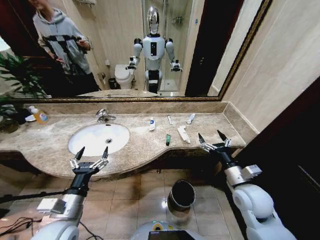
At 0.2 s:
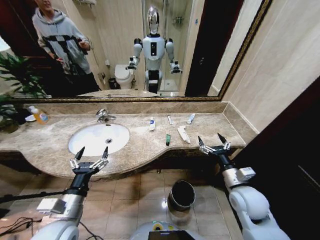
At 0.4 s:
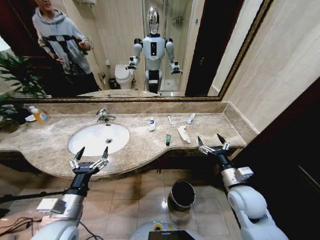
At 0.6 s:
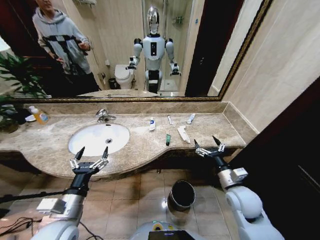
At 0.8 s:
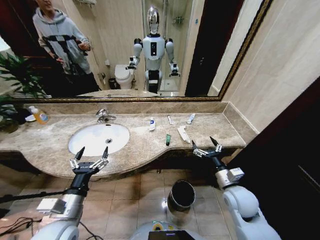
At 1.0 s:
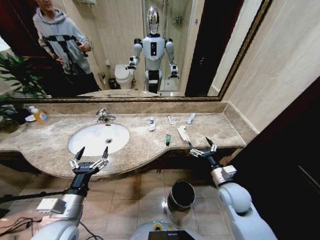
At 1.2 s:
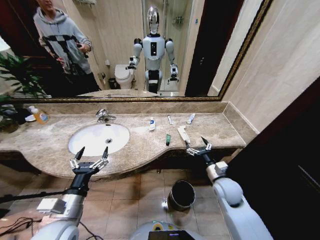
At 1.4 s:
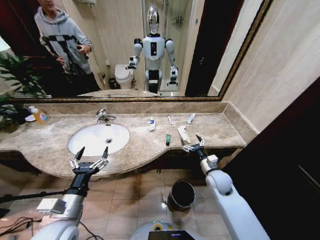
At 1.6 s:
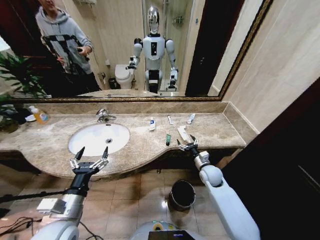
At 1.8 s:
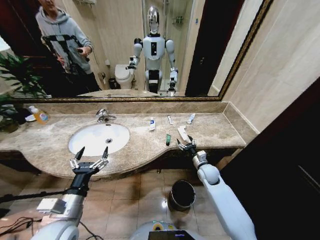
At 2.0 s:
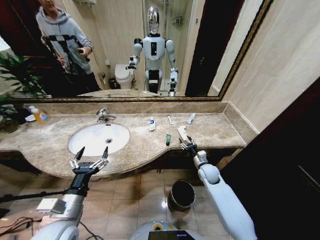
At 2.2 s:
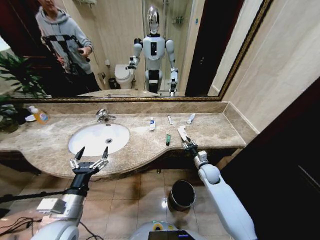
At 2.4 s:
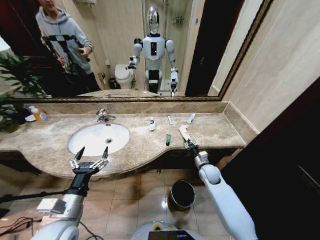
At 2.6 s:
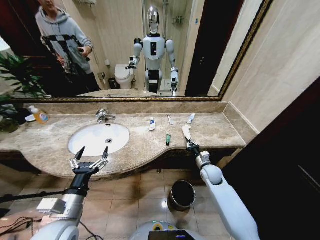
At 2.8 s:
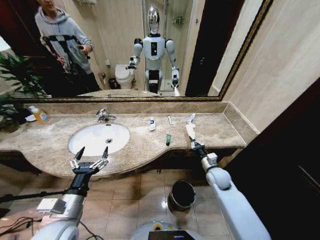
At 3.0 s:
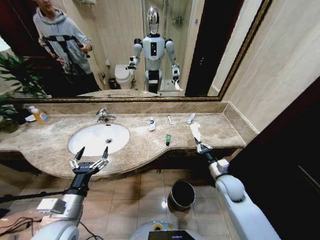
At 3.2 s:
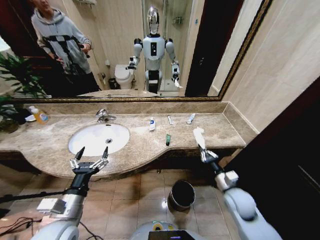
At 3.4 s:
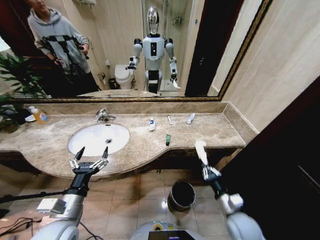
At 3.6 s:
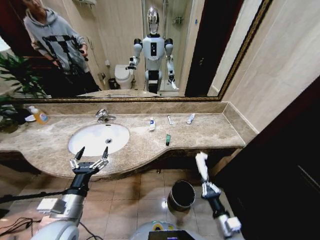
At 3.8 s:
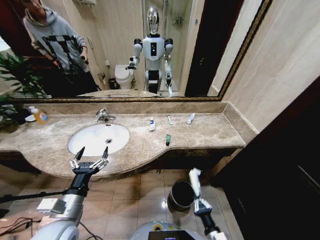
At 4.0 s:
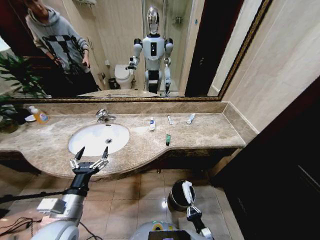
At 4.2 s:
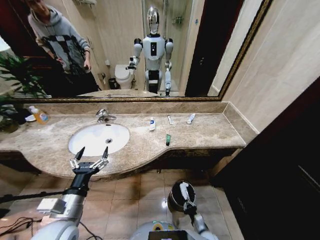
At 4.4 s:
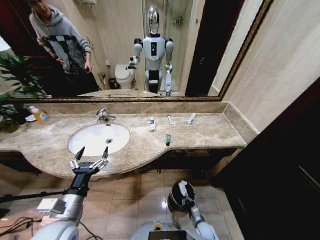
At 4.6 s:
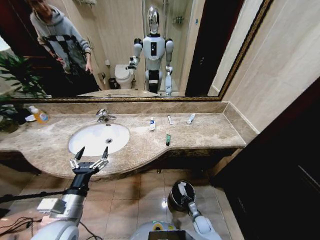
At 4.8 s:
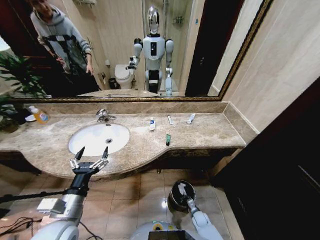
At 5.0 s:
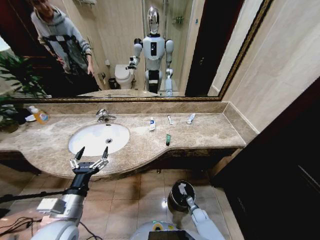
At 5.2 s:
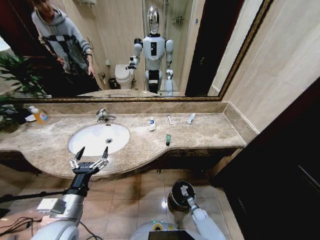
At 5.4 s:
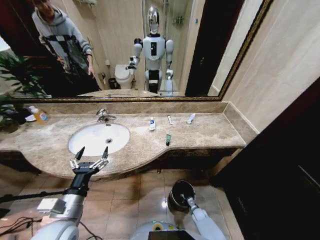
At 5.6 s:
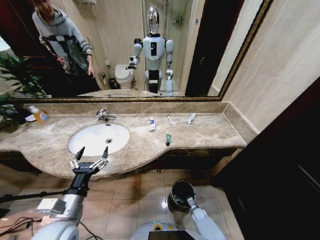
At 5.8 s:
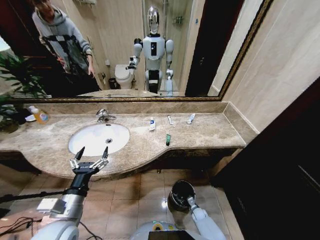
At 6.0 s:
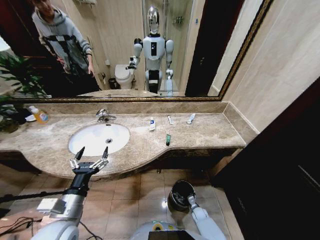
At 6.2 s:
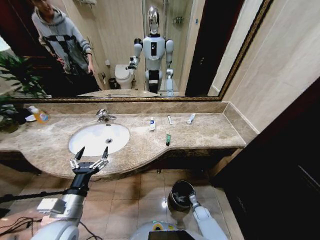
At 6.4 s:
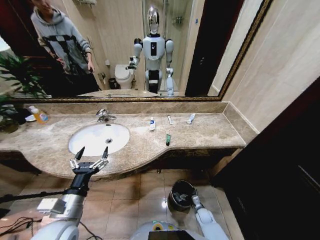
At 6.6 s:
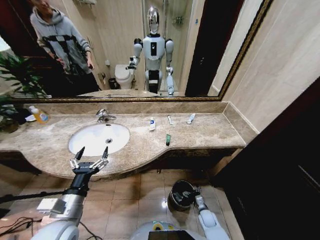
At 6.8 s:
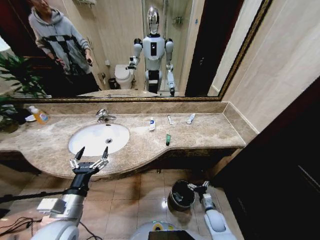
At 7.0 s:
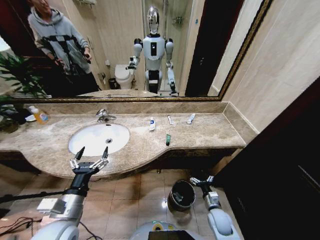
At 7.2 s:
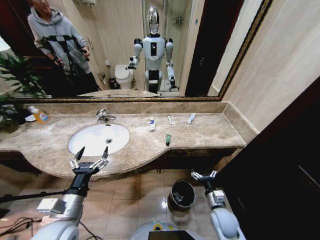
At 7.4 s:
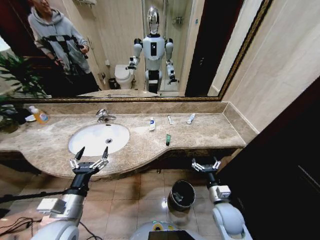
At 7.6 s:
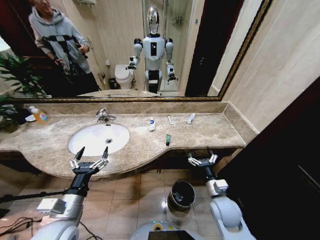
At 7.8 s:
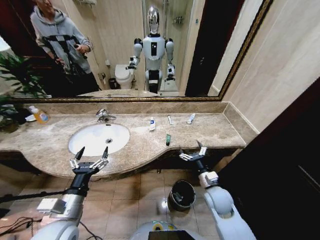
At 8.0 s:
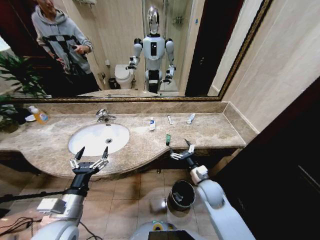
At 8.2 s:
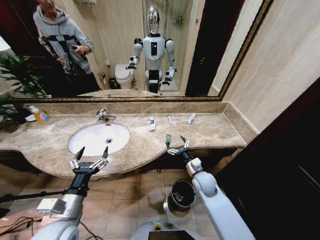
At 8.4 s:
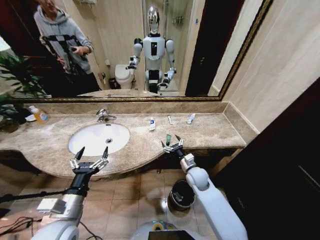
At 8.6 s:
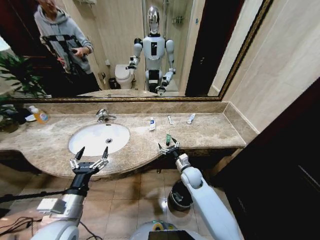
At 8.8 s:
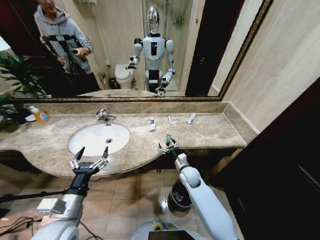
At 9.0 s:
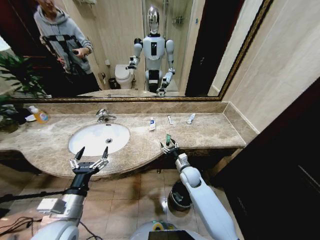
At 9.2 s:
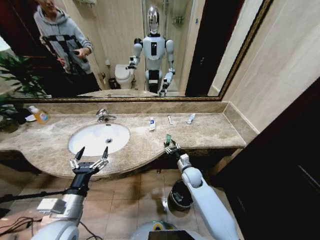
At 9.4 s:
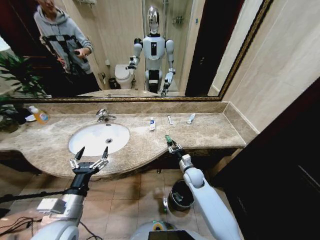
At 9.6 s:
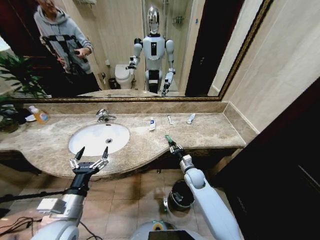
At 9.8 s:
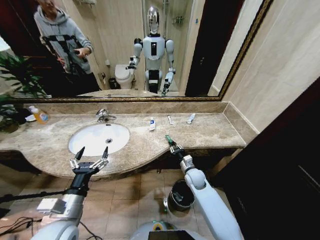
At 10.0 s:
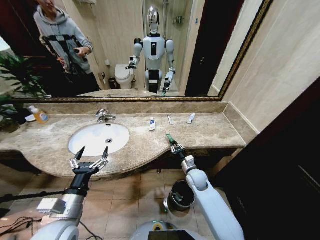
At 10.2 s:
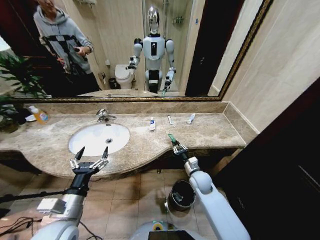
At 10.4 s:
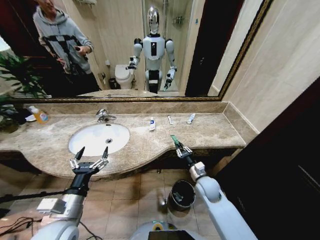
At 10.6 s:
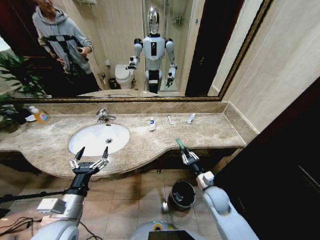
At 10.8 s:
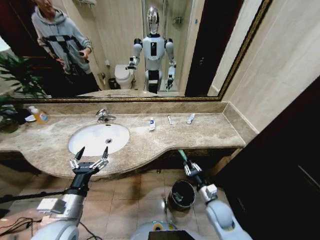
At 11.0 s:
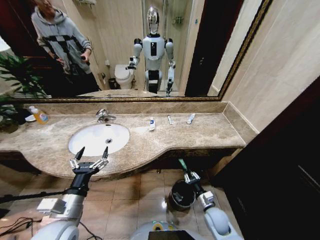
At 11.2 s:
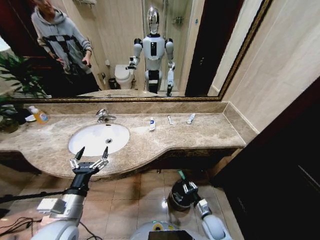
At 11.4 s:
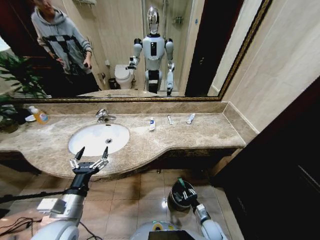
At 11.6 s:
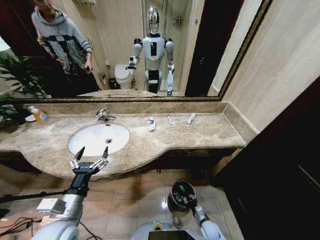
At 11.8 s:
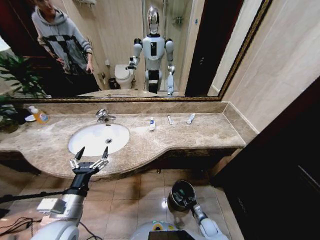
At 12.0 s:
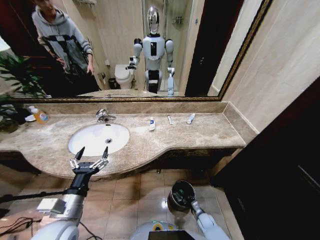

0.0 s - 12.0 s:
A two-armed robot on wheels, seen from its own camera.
Task of the whole recording: Pick up the trash from the sink and place it in the trash bin.
1.6 s - 3.0 s: The right gripper shifts roughly 10 cm backward, and closes.
3.0 s - 4.4 s: The right gripper travels downward by roughly 30 cm.
4.4 s - 6.0 s: The right gripper shifts roughly 10 cm forward and downward, and opens.
6.0 s - 7.6 s: The right gripper is displaced upward by roughly 35 cm.
7.6 s - 9.0 s: The right gripper shifts some 15 cm forward and to the left.
9.0 s - 10.4 s: The right gripper moves backward and to the right, some 10 cm, and closes its fingers.
10.4 s - 12.0 s: The right gripper is displaced downward by some 30 cm.

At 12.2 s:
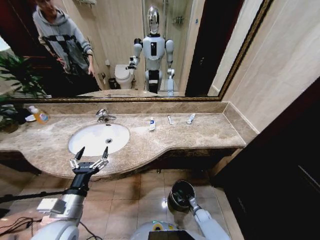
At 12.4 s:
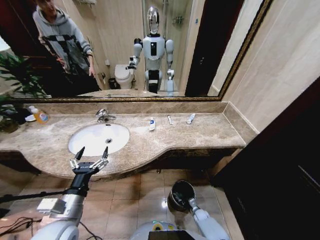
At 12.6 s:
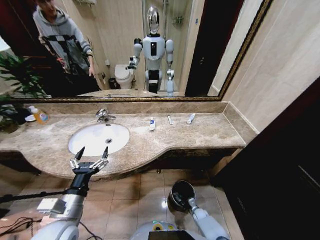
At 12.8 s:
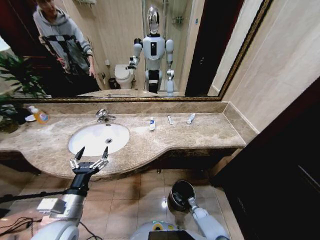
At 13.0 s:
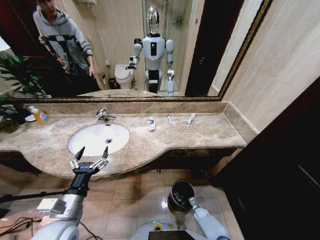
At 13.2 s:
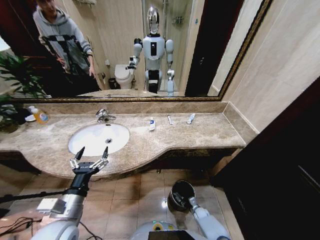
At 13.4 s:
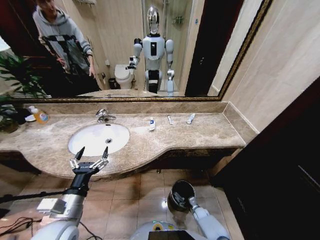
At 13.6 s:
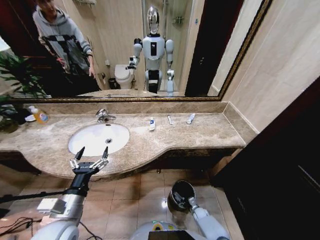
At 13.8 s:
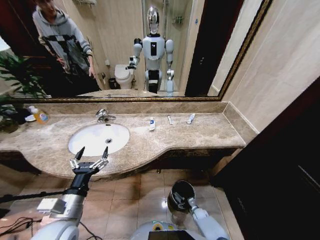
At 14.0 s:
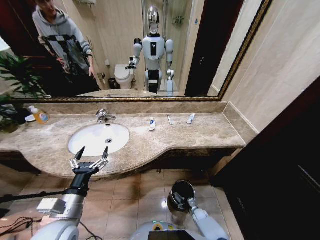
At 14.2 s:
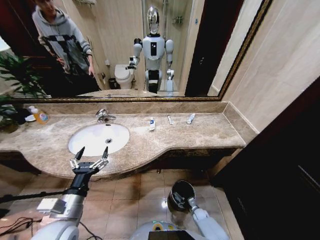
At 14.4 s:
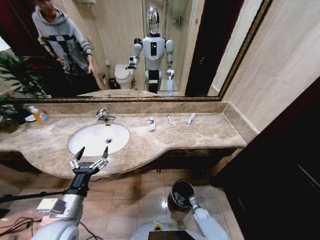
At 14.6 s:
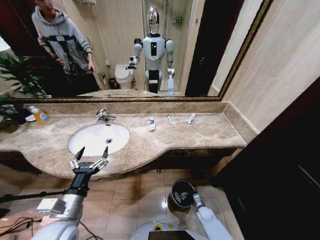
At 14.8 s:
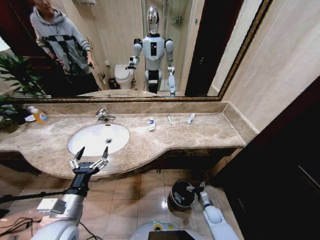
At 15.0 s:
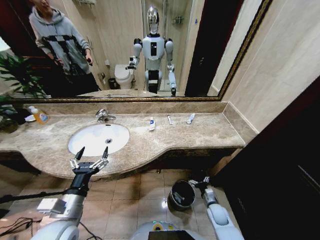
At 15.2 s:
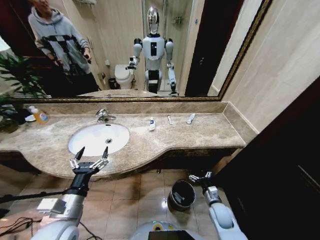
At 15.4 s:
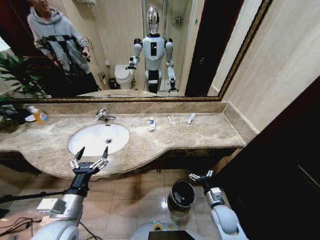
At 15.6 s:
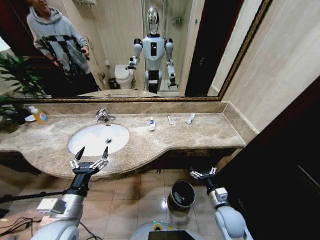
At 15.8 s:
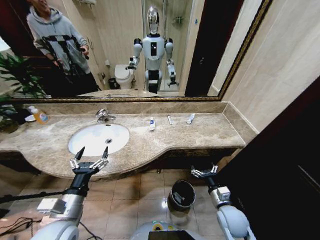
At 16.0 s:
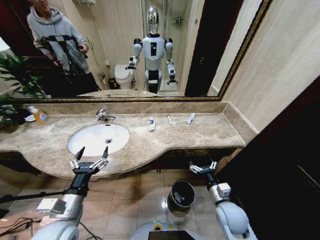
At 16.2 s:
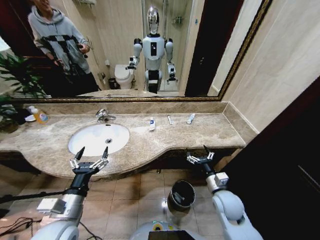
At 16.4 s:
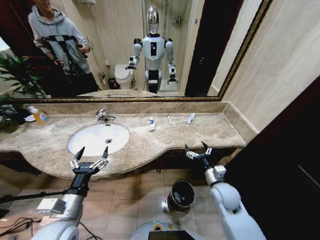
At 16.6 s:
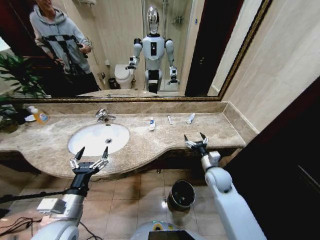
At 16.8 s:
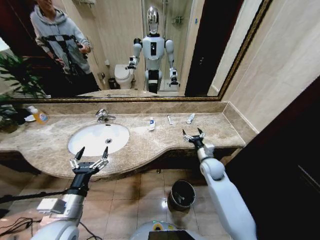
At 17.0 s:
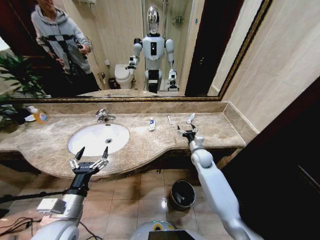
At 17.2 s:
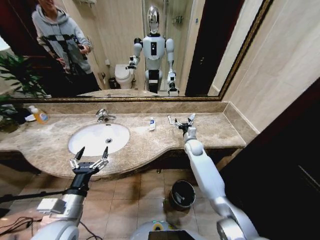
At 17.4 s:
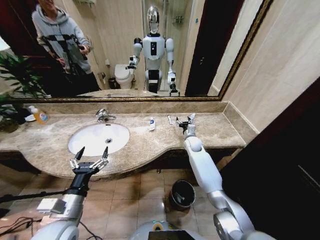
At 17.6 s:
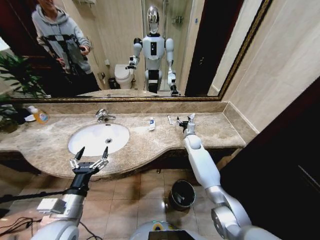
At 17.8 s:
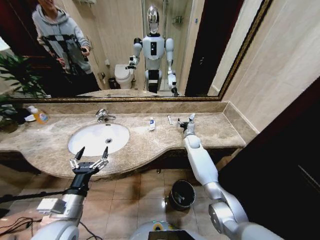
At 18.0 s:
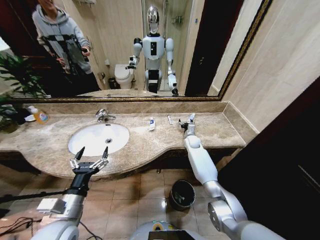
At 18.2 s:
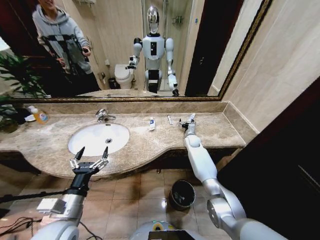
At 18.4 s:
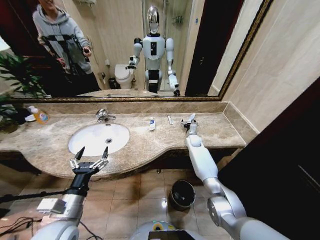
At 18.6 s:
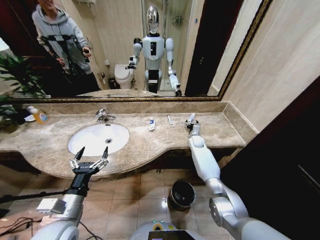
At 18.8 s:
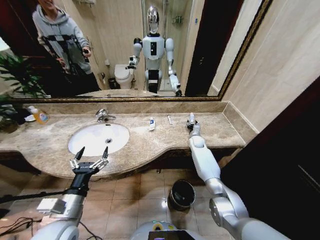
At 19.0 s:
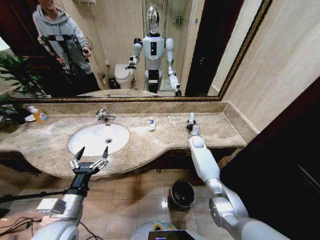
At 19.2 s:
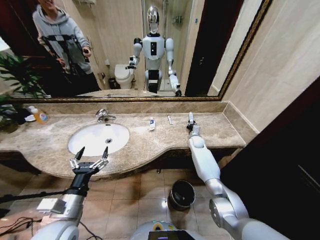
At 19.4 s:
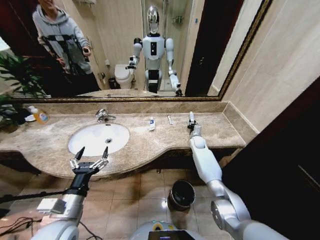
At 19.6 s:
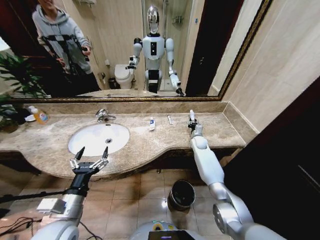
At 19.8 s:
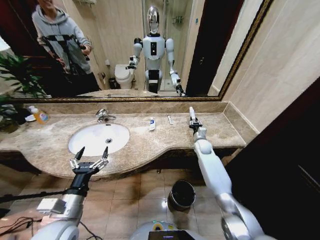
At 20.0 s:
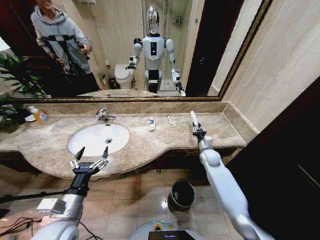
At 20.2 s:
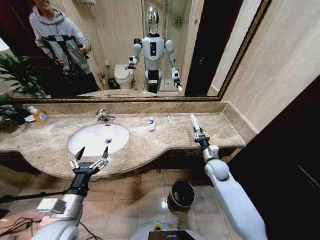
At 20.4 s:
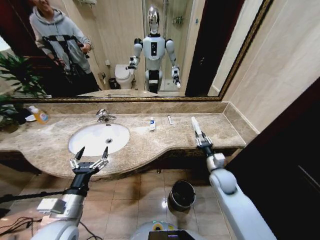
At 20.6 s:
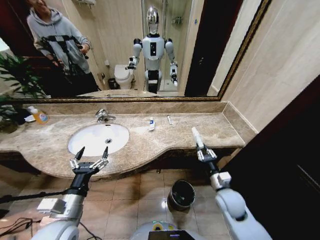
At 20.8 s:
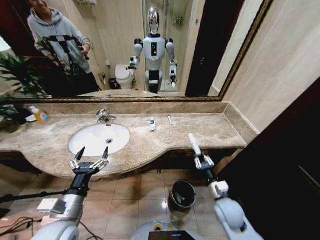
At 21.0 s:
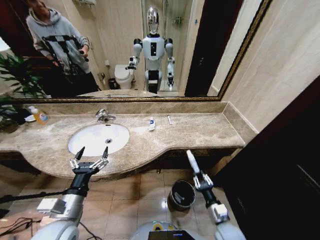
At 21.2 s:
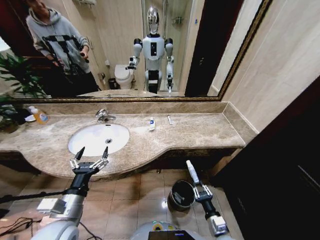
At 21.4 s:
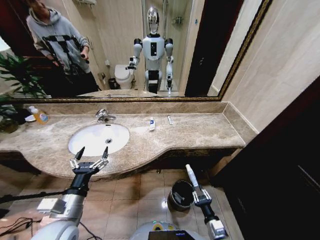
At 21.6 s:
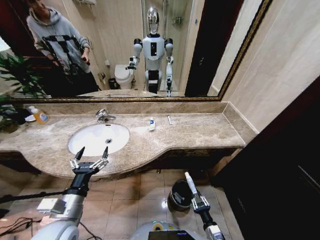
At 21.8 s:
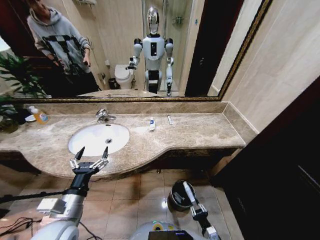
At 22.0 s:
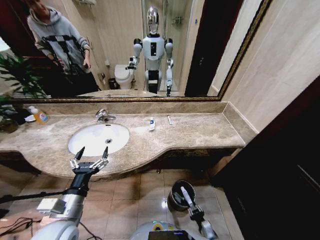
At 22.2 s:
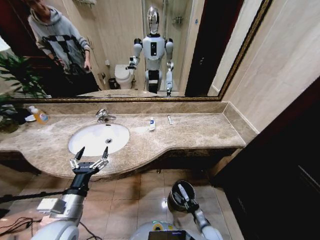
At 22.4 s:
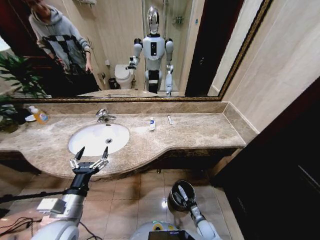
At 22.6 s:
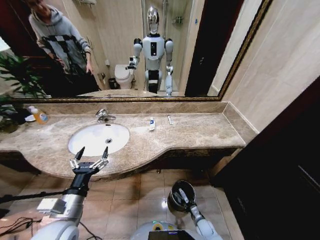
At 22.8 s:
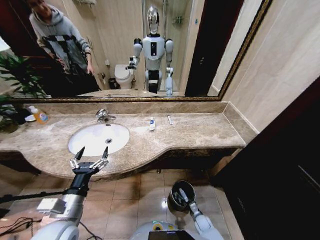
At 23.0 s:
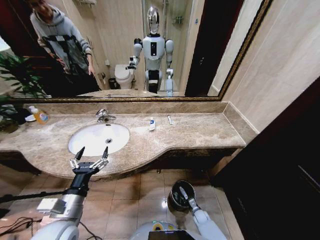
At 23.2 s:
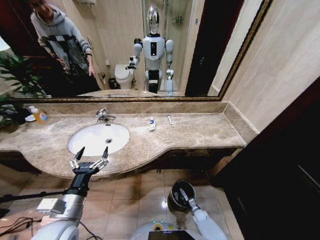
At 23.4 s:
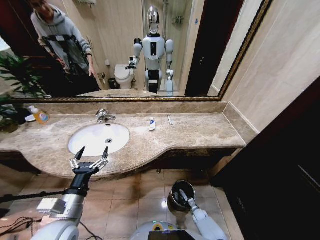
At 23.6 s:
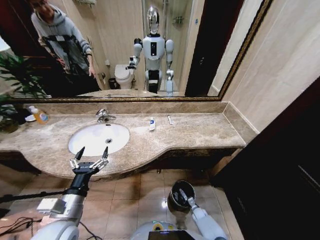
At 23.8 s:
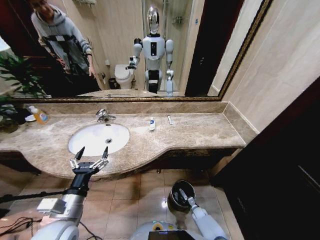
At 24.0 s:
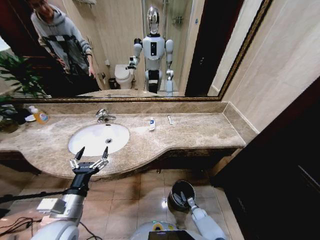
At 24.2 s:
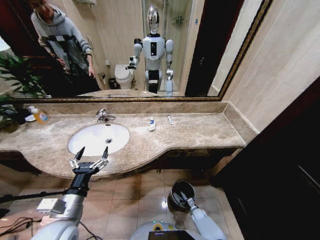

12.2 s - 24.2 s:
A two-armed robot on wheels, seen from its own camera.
Task of the whole recording: Pick up the trash from the sink and place it in the trash bin.
13.8 s - 15.2 s: The right gripper travels upward by about 25 cm.
15.2 s - 16.6 s: The right gripper travels upward and forward by roughly 20 cm.
16.6 s - 18.2 s: The right gripper moves forward, about 25 cm.
18.2 s - 19.8 s: The right gripper changes place by some 5 cm, and closes up.
19.8 s - 21.2 s: The right gripper heads backward, covering about 40 cm.
21.2 s - 22.6 s: The right gripper travels downward by about 20 cm.
22.6 s - 24.2 s: The right gripper shifts roughly 5 cm forward, and opens.
